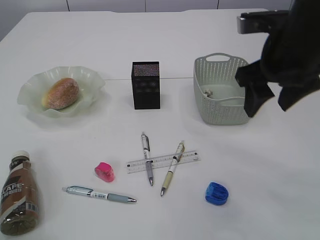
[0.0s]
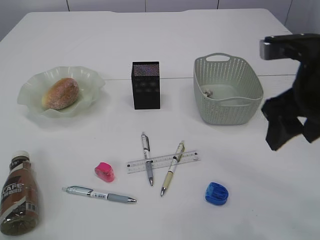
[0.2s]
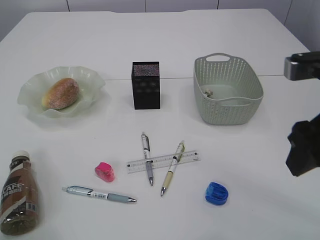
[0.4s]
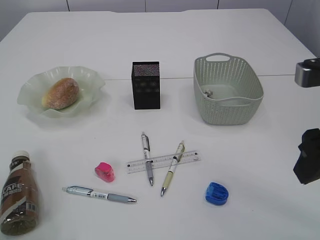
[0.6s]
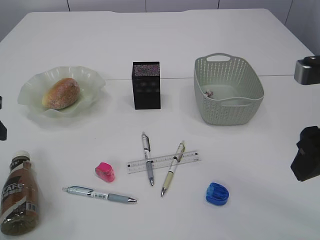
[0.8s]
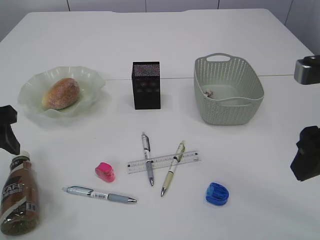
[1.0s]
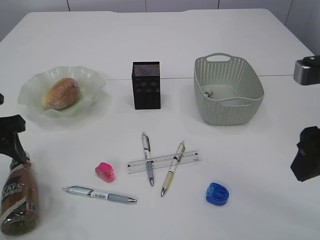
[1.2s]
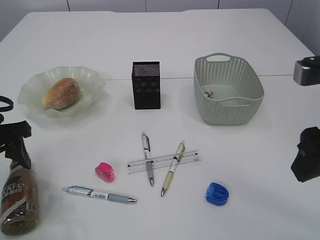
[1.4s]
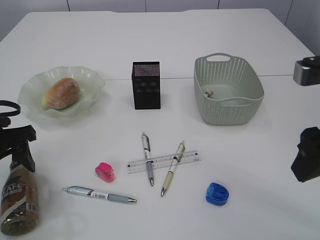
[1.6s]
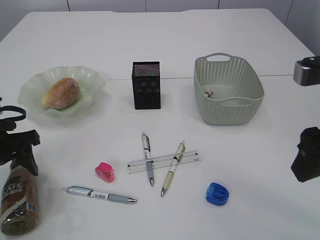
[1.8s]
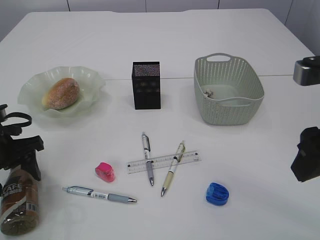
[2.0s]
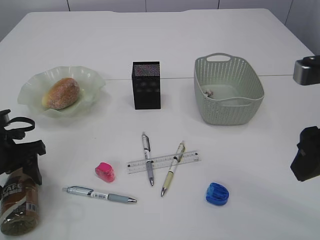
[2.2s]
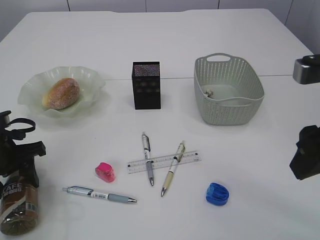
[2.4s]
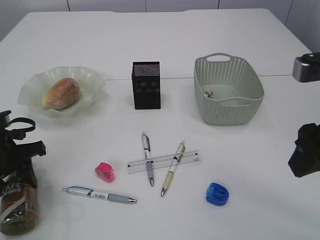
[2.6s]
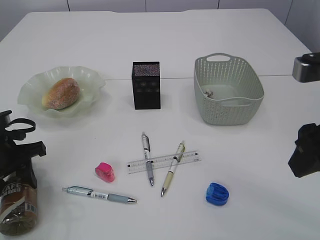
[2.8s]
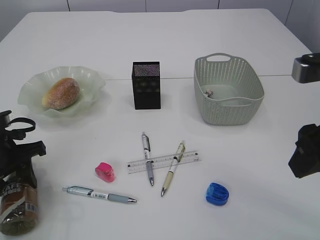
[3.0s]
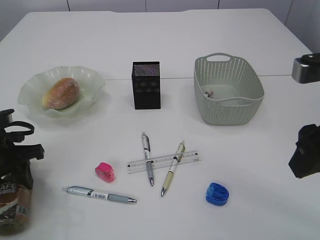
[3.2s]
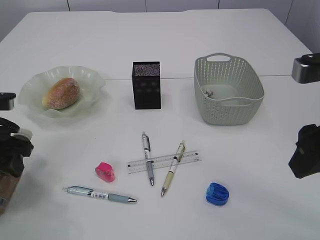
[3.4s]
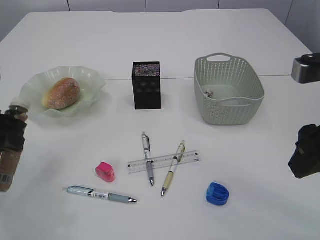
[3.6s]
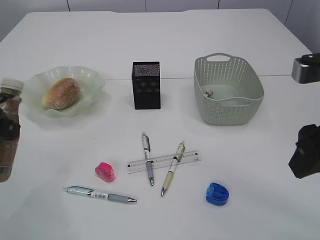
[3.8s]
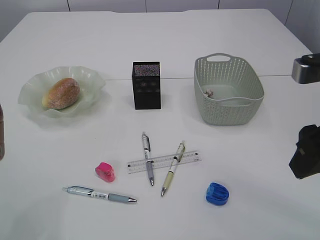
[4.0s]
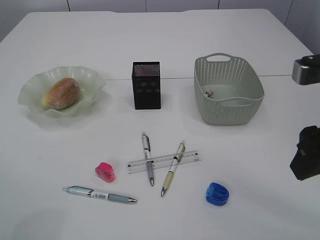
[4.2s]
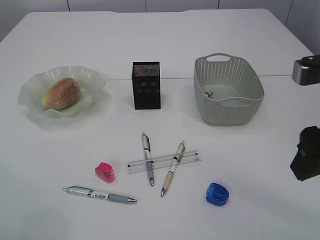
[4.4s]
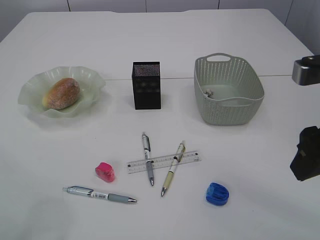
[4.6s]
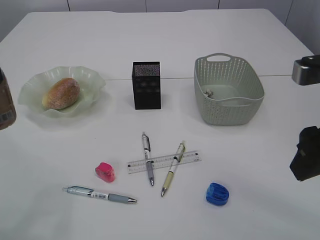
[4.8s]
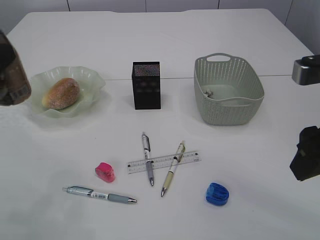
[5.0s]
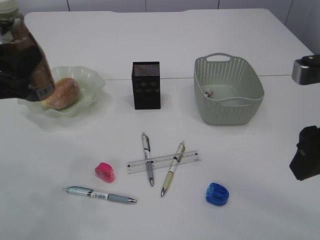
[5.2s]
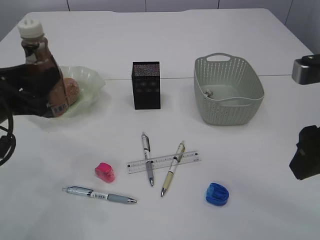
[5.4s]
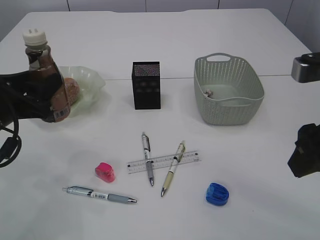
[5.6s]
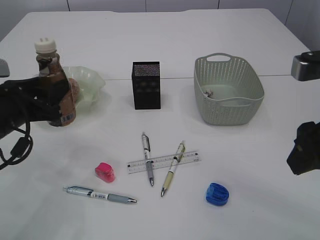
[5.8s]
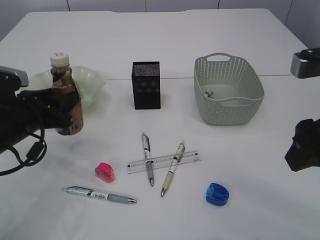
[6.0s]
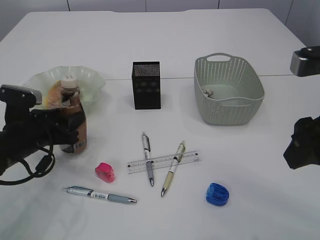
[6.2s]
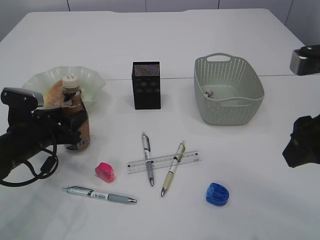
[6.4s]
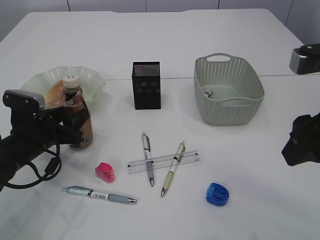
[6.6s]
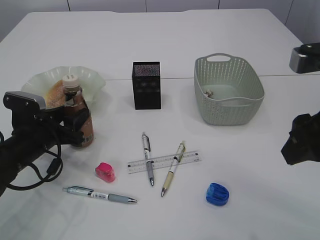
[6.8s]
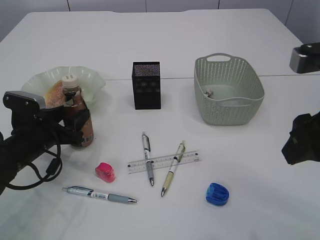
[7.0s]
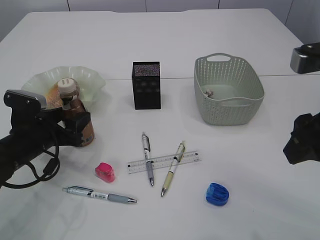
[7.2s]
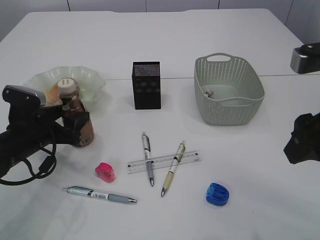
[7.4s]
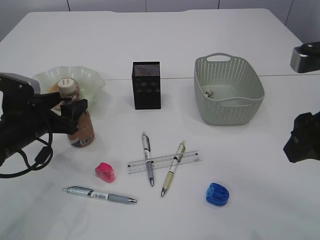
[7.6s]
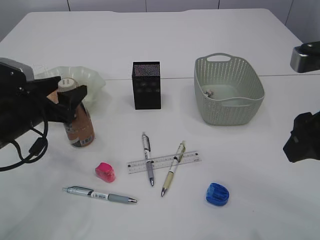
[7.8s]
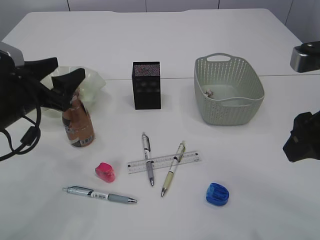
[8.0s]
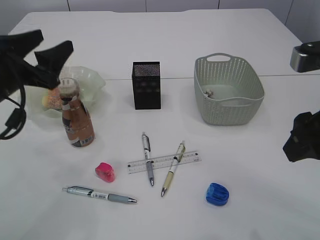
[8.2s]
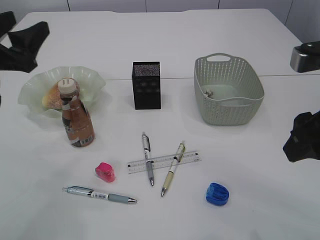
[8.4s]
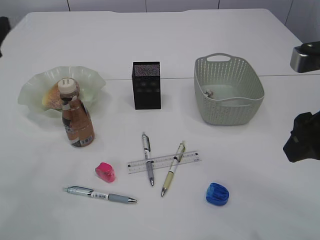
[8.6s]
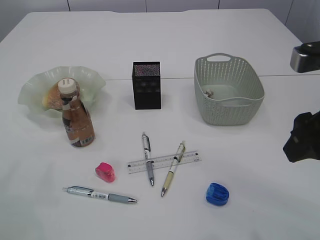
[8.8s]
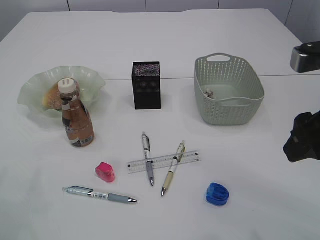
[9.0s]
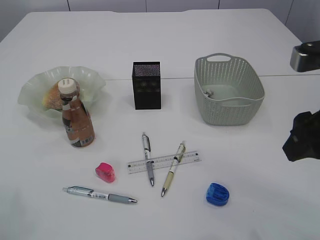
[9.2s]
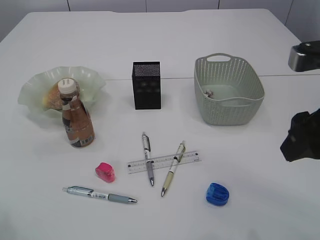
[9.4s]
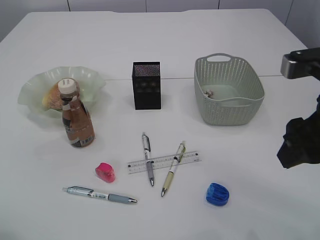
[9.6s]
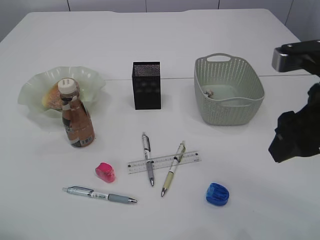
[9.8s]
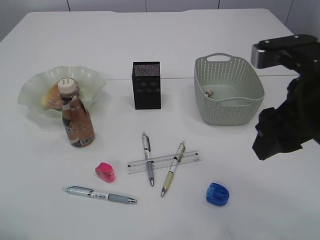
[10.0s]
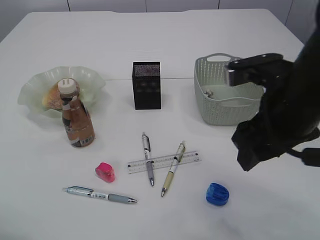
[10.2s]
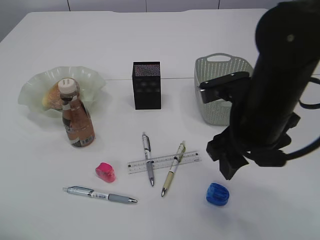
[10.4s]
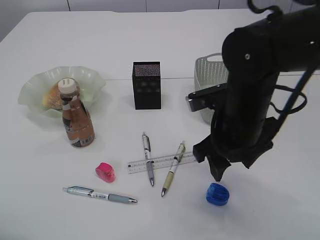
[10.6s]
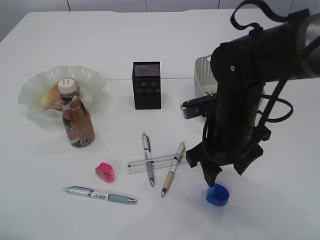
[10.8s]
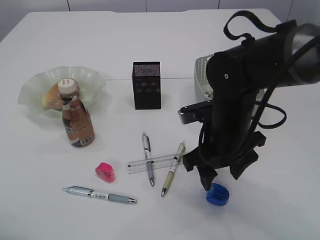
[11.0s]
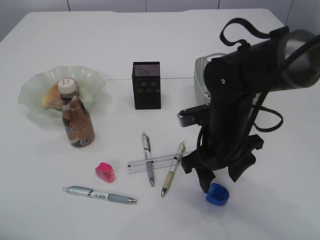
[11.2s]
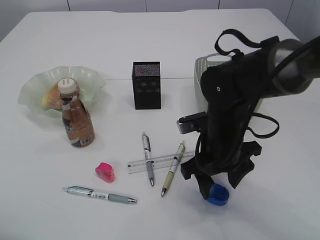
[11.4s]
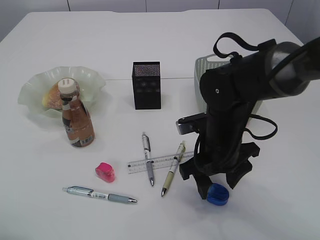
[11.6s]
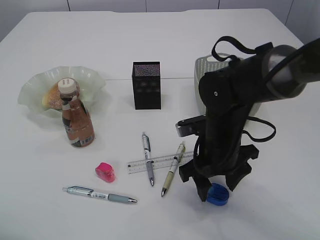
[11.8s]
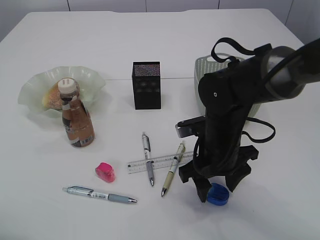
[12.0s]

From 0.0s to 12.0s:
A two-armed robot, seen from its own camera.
Step, from 0.0s to 3.6s: Pick up the bottle with the left arm.
Step, from 3.8s to 8.2s: Place the bottle.
From 0.0s to 1.6s: The left gripper shifts some 15 cm downward and forward, while the right gripper heads backward, covering about 10 cm.
From 1.6s to 3.0s: The left gripper closes.
From 3.0s to 4.4s: The left gripper heads upward and backward, covering approximately 20 cm.
From 4.4s to 6.0s: The left gripper travels downward and forward by about 20 cm.
From 6.0s to 7.6s: The left gripper opens.
From 7.6s to 9.0s: The left gripper is displaced upward, to the left and backward by some 15 cm.
From 9.0s to 10.4s: The right gripper travels to the left, forward and downward by approximately 10 cm. Meanwhile the left gripper is displaced backward by about 5 cm.
From 10.4s to 12.0s: The right gripper moves downward, approximately 10 cm.

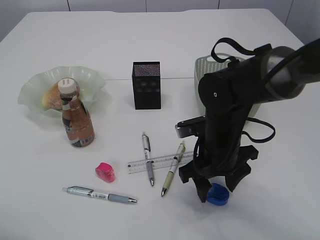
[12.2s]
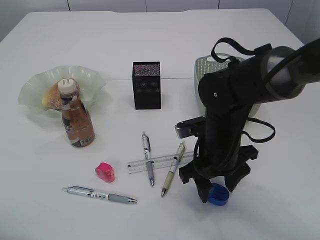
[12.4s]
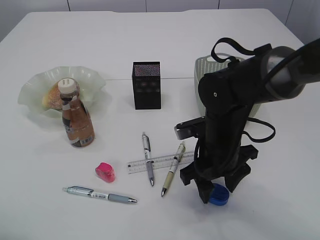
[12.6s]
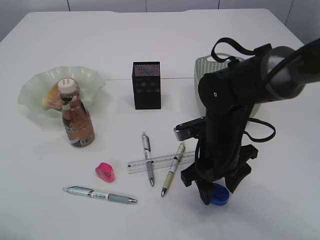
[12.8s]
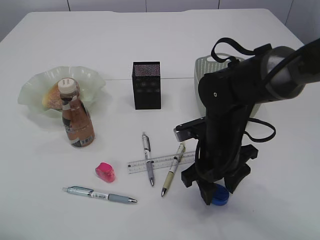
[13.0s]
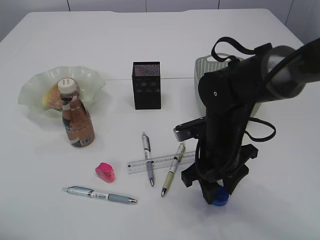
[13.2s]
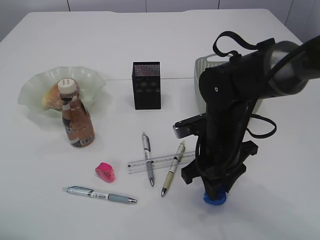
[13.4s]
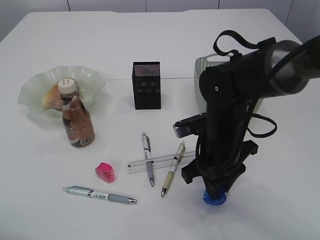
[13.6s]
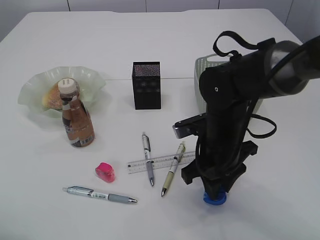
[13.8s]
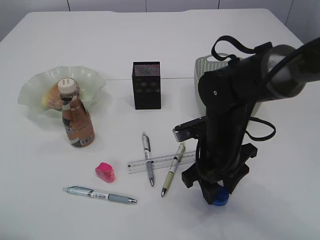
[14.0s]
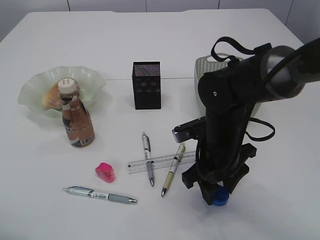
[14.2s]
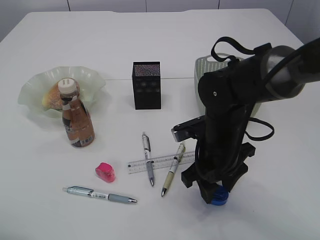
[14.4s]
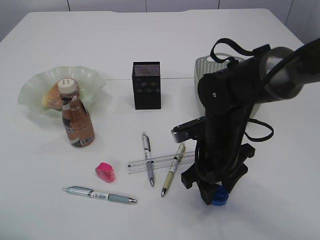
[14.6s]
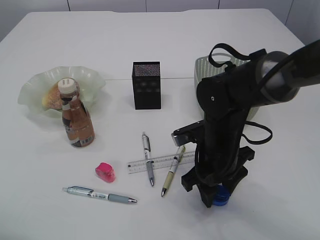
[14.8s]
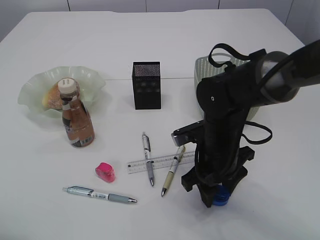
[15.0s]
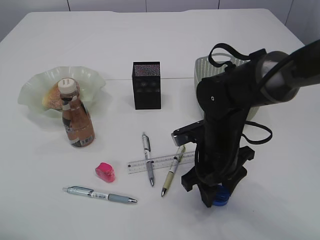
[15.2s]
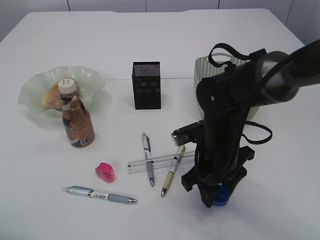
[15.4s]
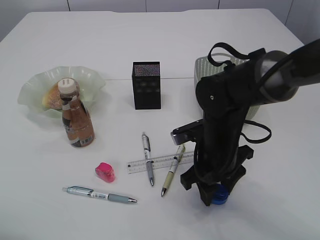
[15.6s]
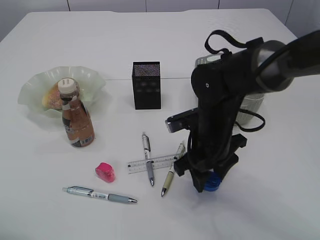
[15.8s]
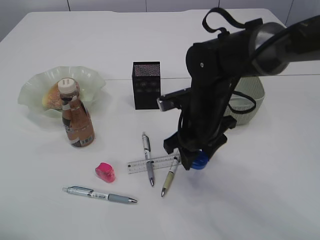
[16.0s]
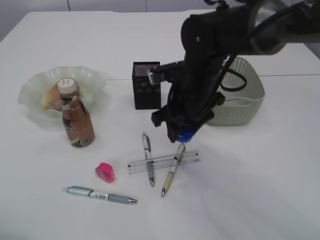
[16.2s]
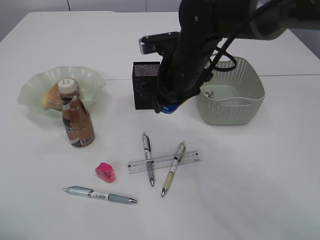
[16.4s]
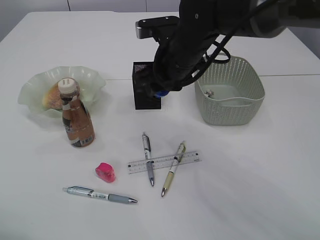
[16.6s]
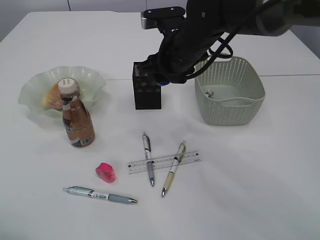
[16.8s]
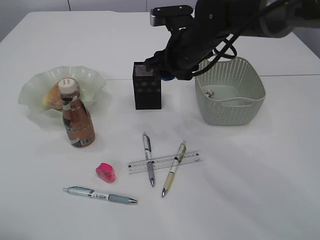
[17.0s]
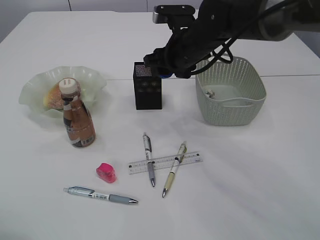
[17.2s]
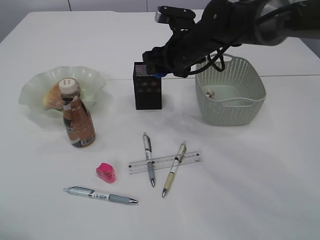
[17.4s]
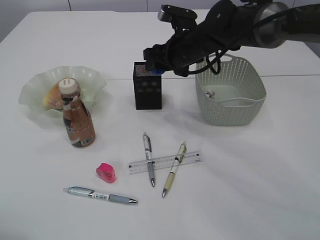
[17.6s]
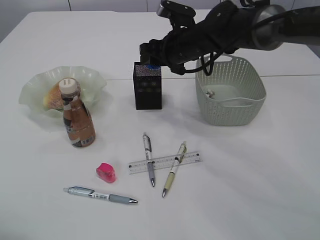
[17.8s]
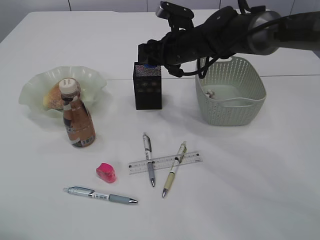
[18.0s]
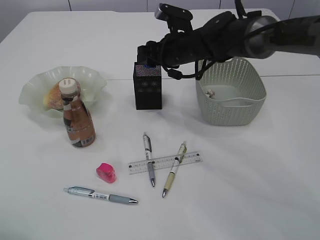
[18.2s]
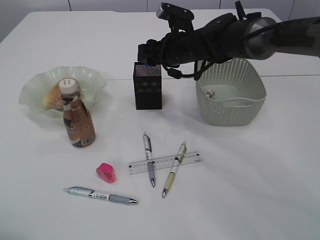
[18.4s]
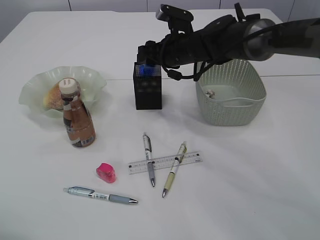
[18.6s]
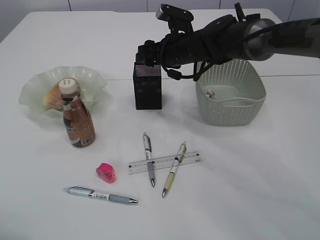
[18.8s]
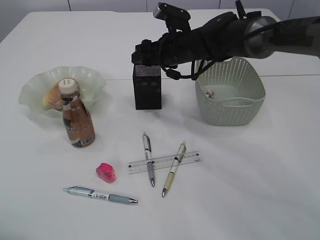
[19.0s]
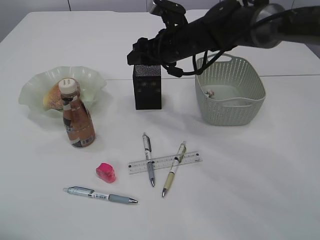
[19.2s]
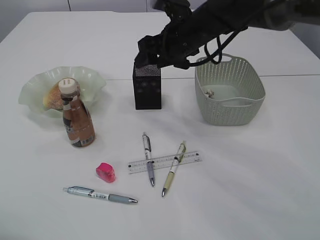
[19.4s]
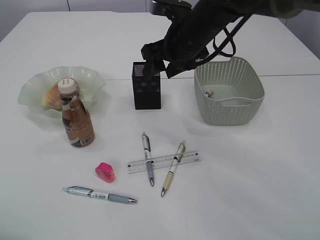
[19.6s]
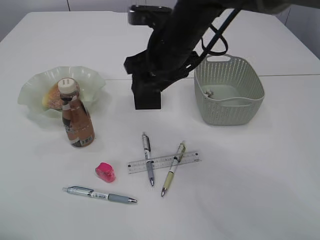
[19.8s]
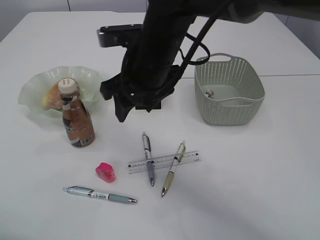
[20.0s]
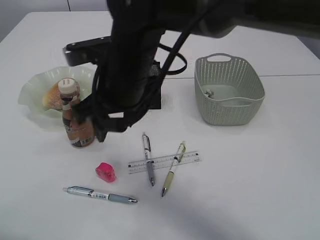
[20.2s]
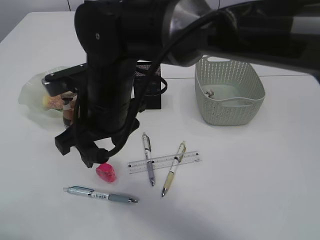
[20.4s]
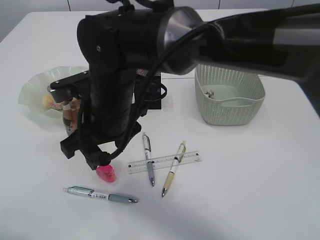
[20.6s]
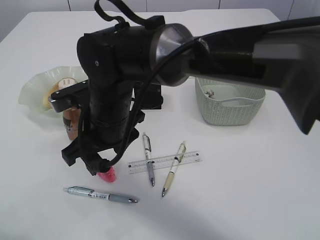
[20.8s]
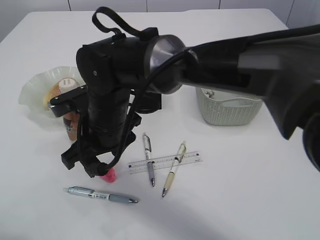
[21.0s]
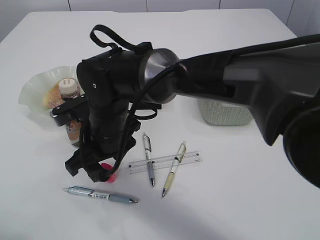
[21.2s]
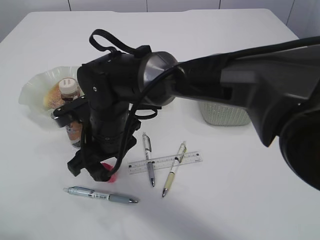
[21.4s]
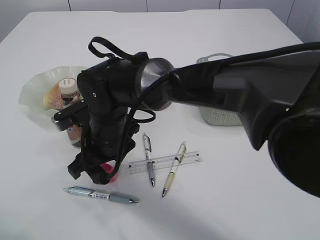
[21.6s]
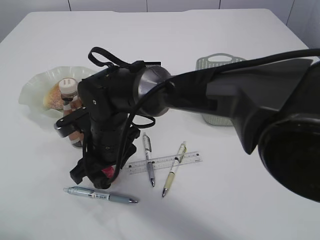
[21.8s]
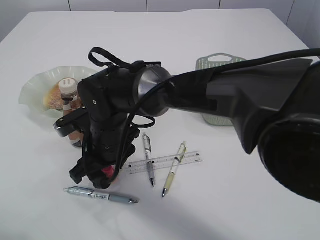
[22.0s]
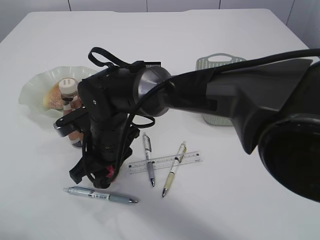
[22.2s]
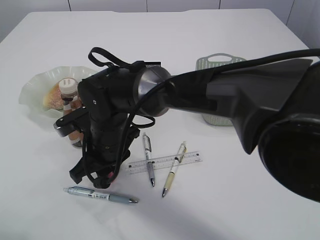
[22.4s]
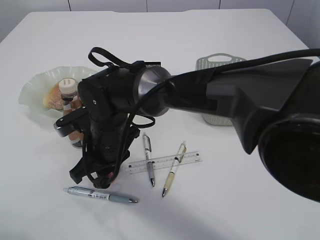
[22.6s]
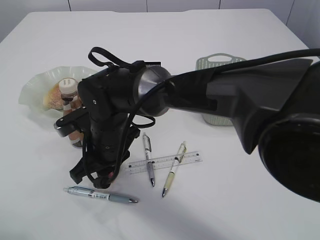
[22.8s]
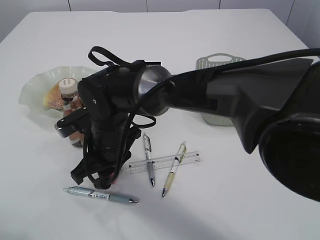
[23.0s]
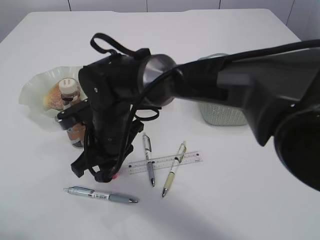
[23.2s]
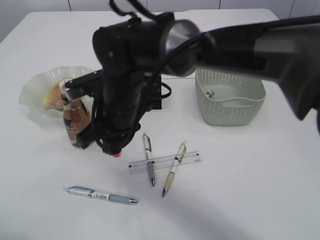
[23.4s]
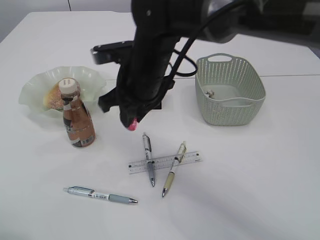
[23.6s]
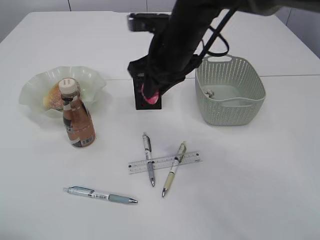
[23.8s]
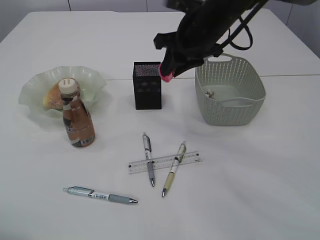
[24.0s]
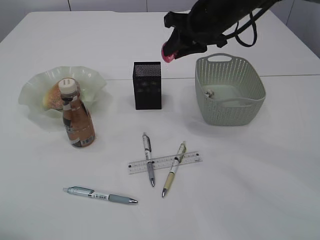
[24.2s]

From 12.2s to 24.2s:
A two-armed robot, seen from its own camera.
Step, from 12.2s to 16.0s: pick up the blue pencil sharpener.
Step, from 16.2s to 19.4s: place the blue pencil sharpener into the pen holder.
Step, from 19.6s to 23.2s: pick up the red pencil sharpener.
From 12.2s to 13.8s: The right gripper closes up.
From 13.8s to 15.2s: The grippers stay close to where they were, moving slightly.
From 15.2s to 16.6s: The right gripper is displaced upward and forward by approximately 15 cm.
From 16.6s to 18.2s: The right gripper is displaced forward by some 10 cm.
From 18.2s to 19.8s: The right gripper heads backward and upward, covering approximately 10 cm.
From 19.8s to 21.2s: The right gripper goes approximately 15 cm to the left, downward and backward.
From 21.2s to 22.6s: The right gripper closes.
From 22.6s to 24.2s: The right gripper shifts some 30 cm to the right, upward and forward.
